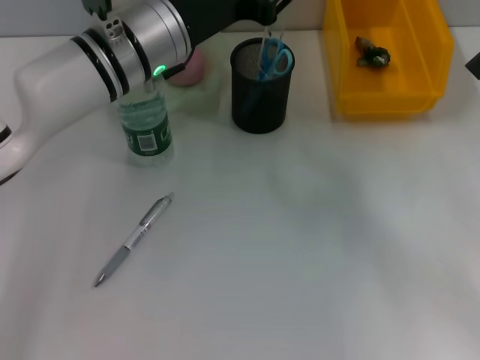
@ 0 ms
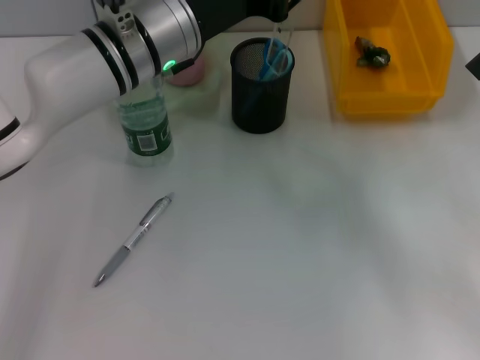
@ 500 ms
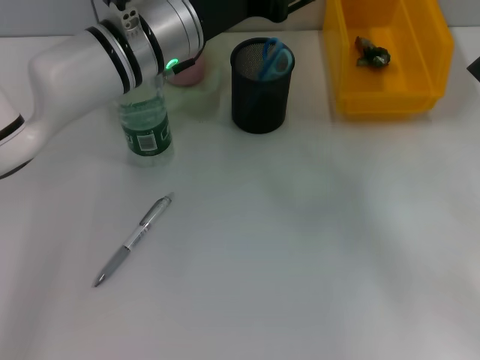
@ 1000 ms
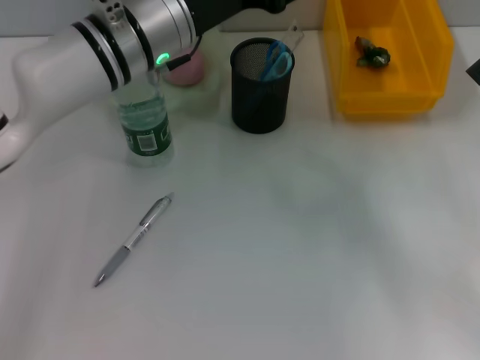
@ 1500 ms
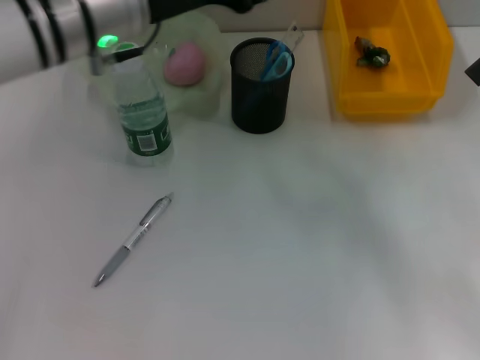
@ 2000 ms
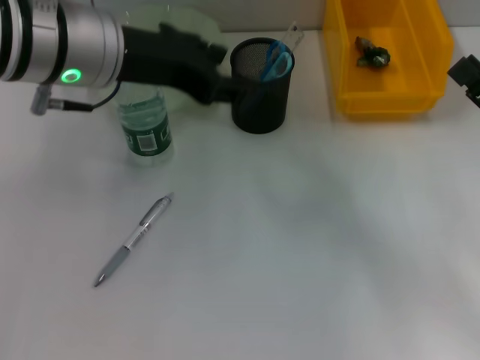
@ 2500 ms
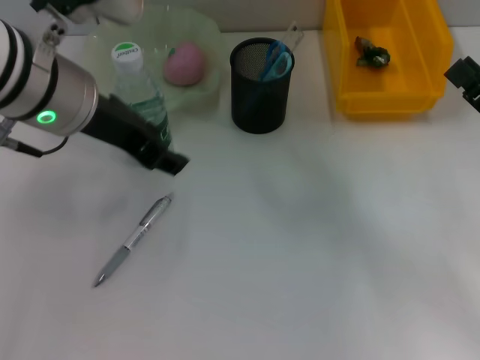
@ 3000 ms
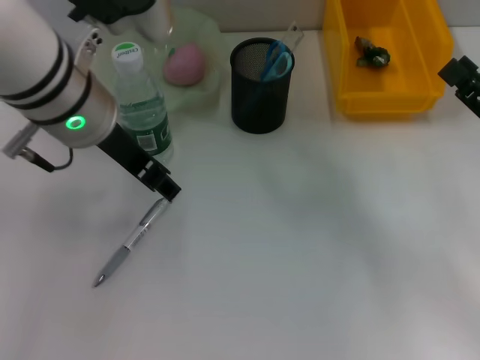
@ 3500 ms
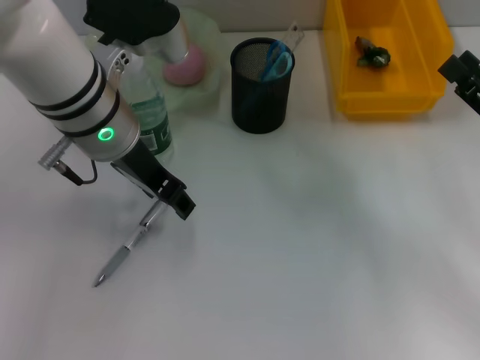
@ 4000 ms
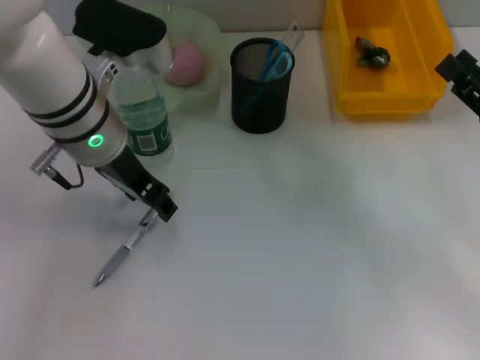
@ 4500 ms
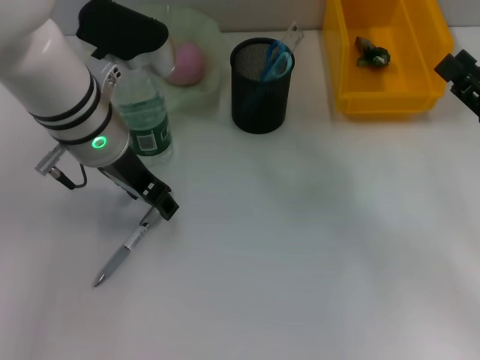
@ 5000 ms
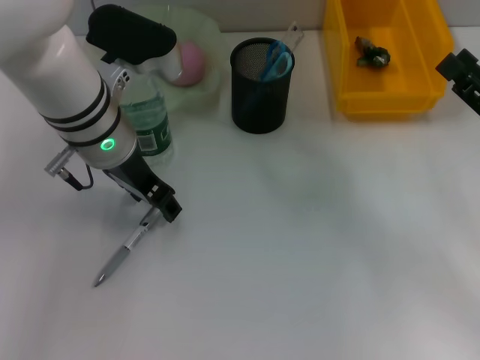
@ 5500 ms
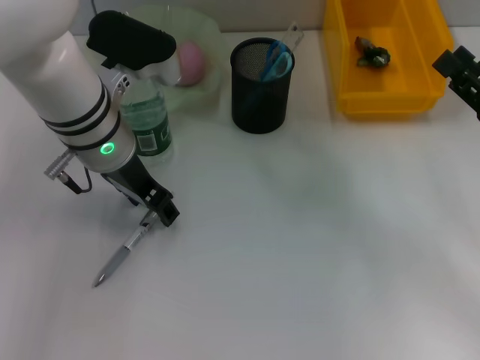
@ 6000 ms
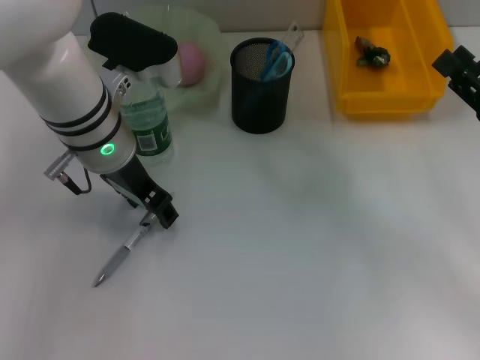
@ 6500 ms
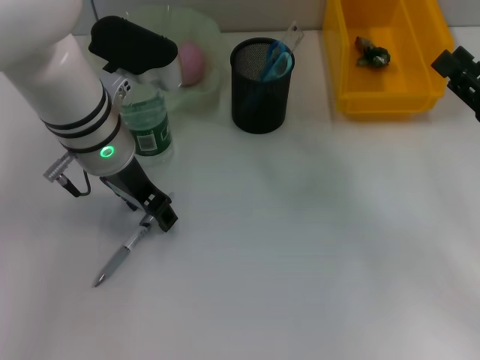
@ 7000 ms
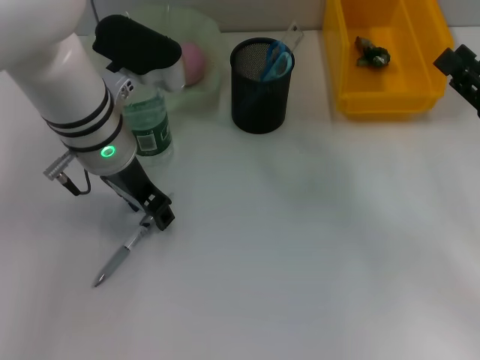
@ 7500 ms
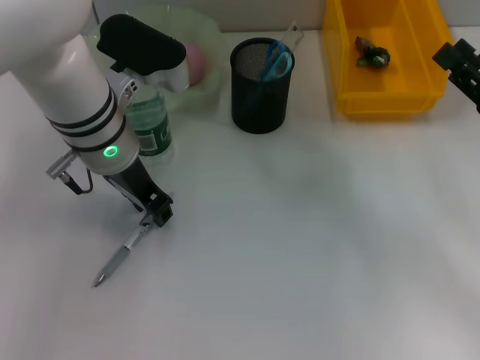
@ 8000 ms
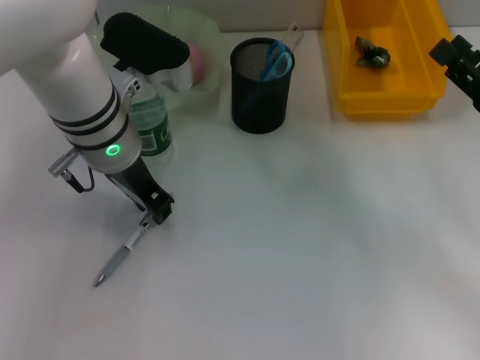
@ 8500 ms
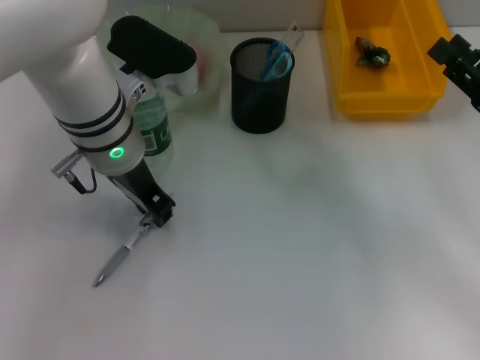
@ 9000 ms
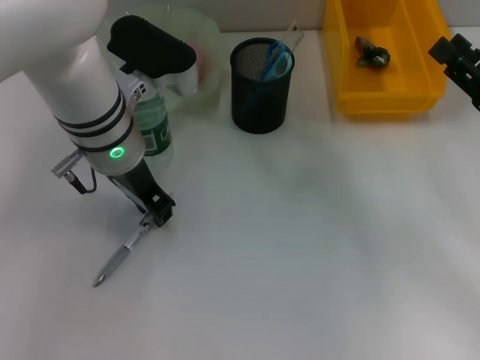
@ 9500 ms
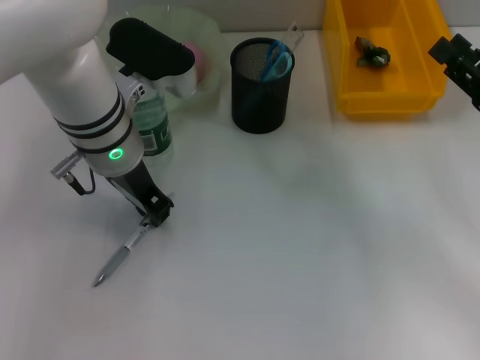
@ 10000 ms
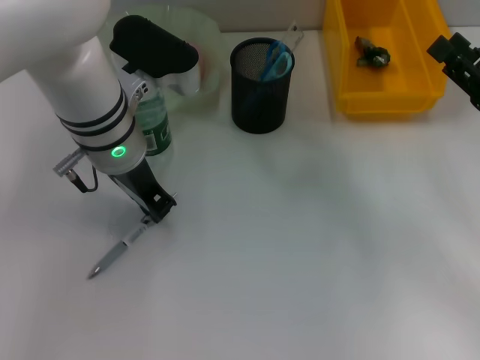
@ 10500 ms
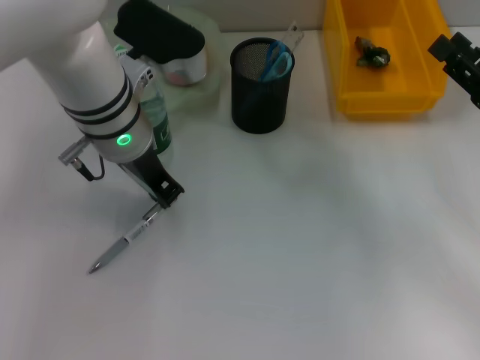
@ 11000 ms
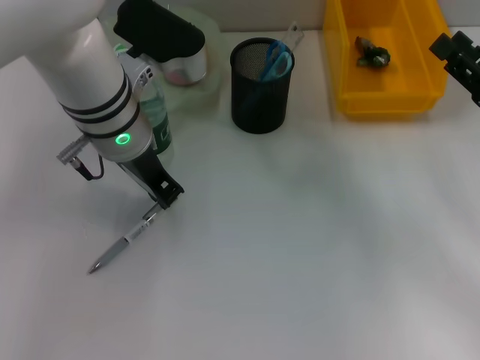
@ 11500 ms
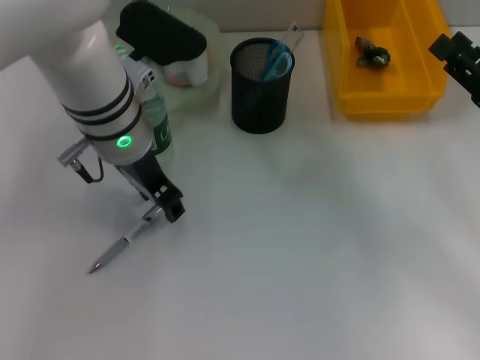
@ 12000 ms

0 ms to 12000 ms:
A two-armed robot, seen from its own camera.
0 ms to 2000 ms: The left gripper shifts some 5 cm upward, and opens up.
4000 ms to 6000 ms: There are only small adjustments of the grippers.
6000 ms to 8000 ms: Both grippers stay about where they are.
8000 ms to 10000 ms: Neither gripper changes place.
10000 ms to 12000 ms: The grippers stay close to where they were, moving slightly.

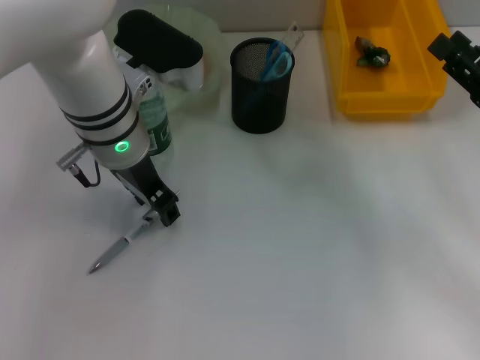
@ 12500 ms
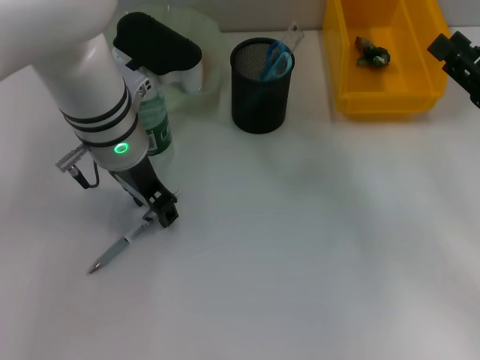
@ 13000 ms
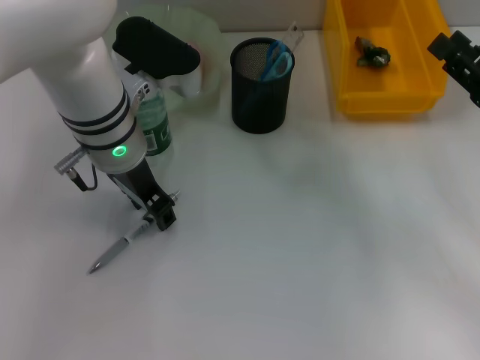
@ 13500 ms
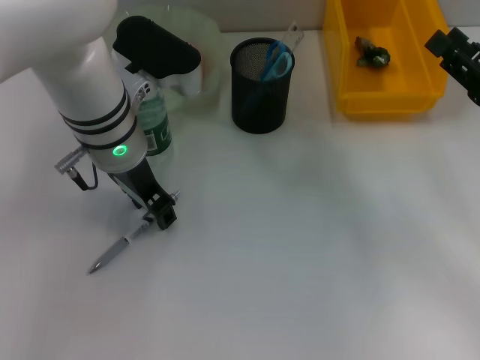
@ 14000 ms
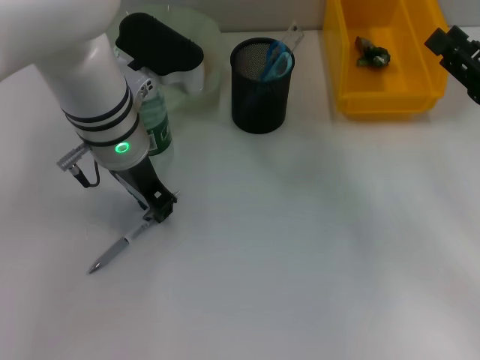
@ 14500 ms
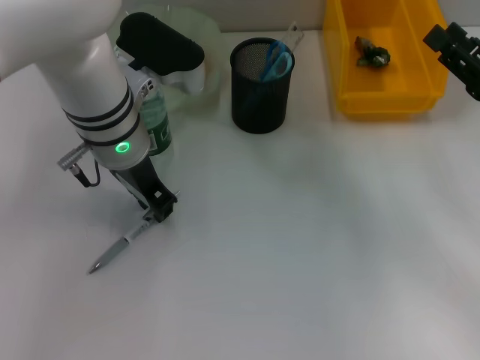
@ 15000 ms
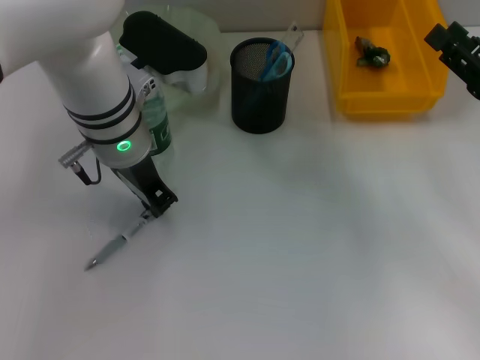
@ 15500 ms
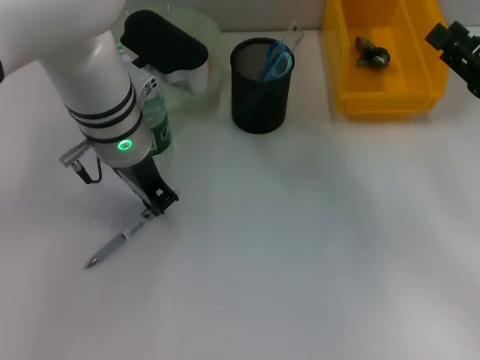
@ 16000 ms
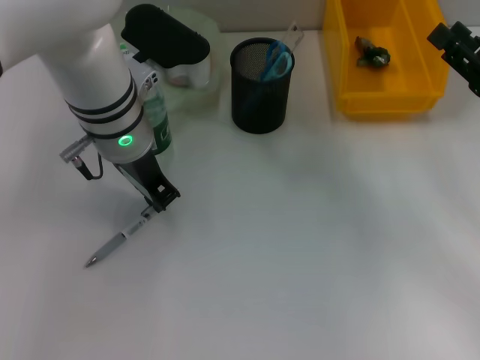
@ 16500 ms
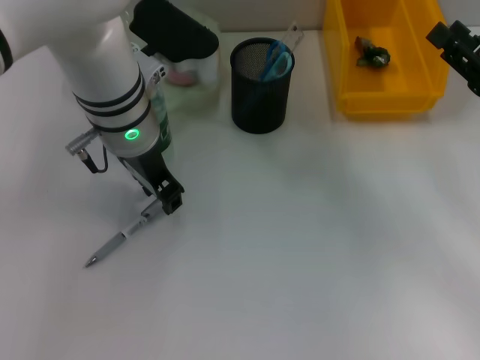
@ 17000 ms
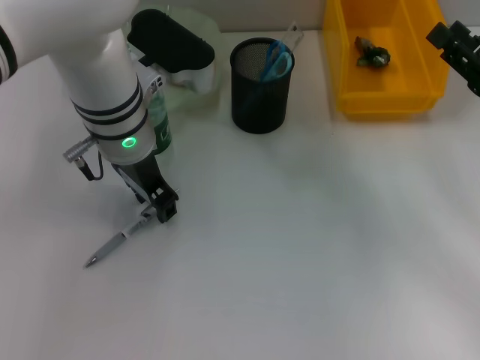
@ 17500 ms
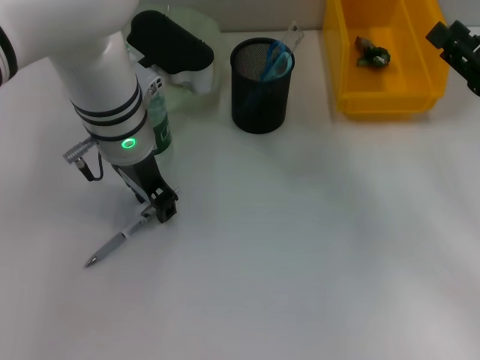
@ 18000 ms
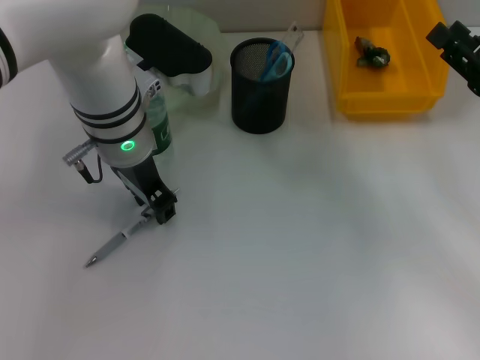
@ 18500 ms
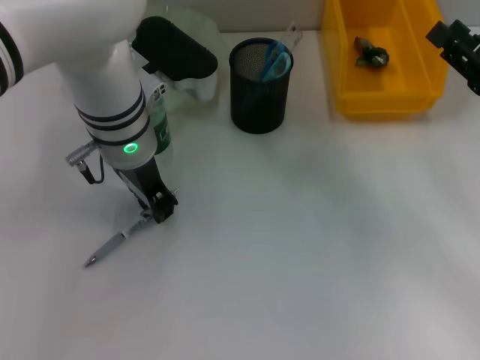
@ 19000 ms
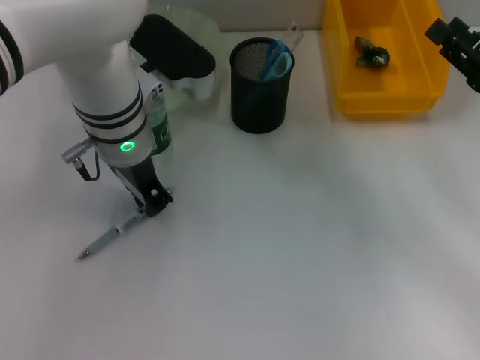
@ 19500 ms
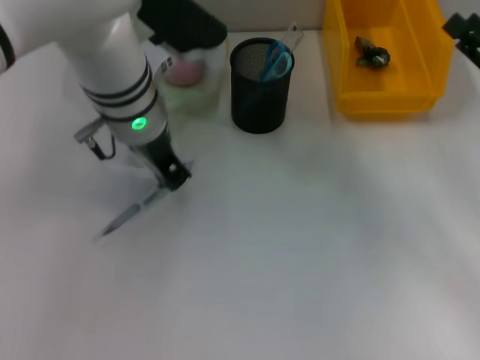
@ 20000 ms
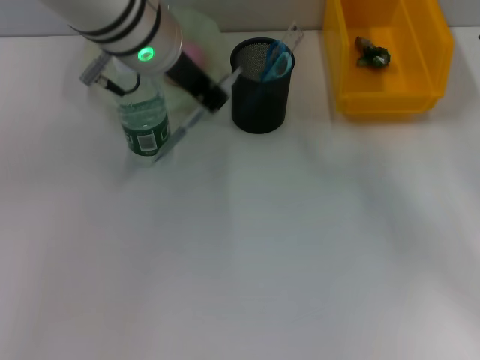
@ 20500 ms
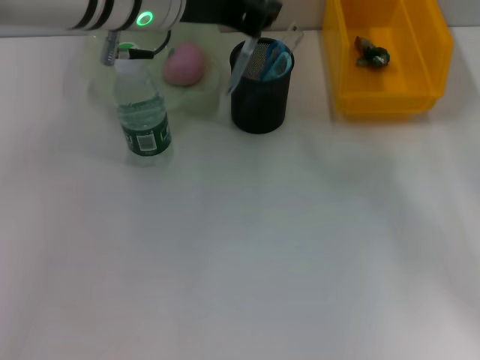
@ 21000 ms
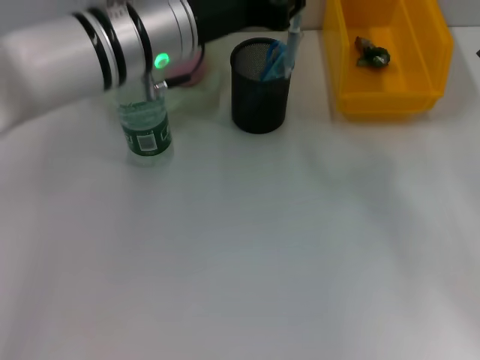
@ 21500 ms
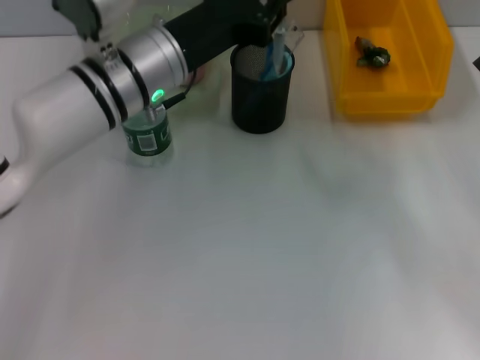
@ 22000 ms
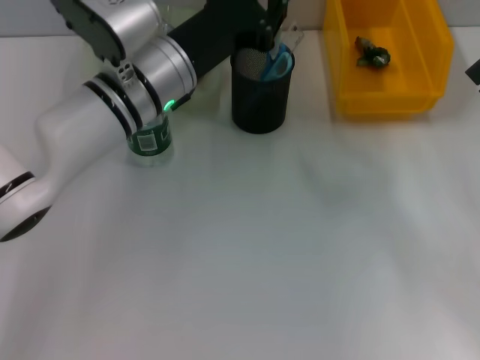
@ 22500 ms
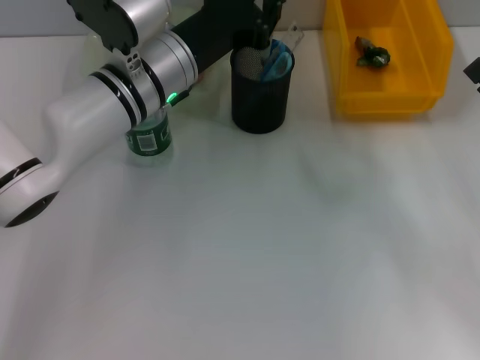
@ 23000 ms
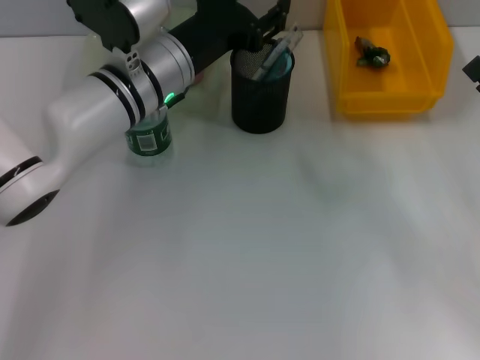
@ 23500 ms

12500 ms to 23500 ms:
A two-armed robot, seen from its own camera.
Step, 12500 ms to 19500 ms: Grab the gray spring-action pen with the left hand.
12500 ms to 14500 ms: Both grippers stay about where they are.
14500 ms to 16000 ms: The left gripper closes.
16000 ms to 18000 ms: The left gripper opens.
18000 ms to 20000 ms: The left gripper closes up.
20000 ms to 21500 ms: The left gripper reaches roughly 10 cm upward, then returns.
21500 ms to 23500 ms: The left gripper shifts roughly 5 cm downward, and opens its fingers.

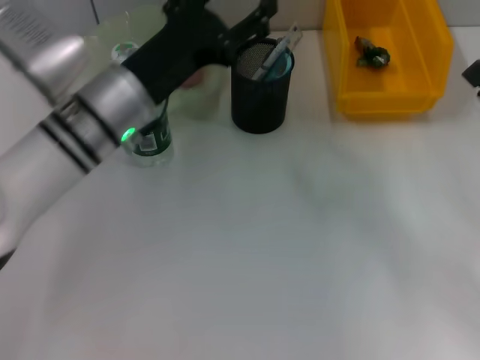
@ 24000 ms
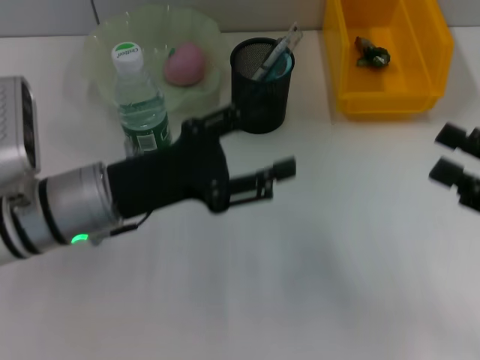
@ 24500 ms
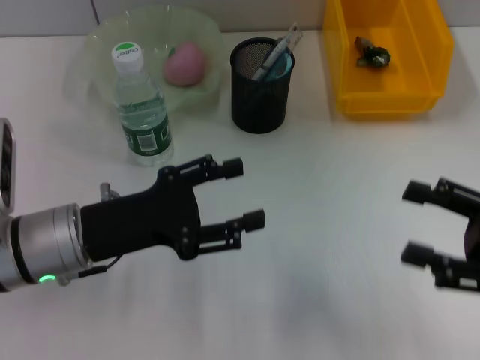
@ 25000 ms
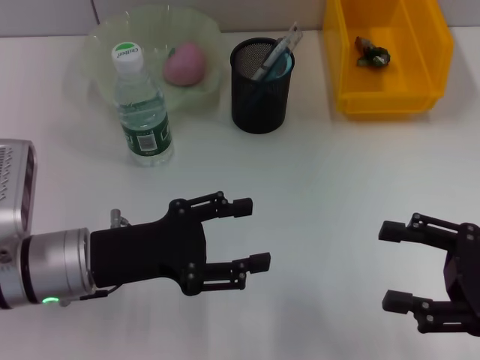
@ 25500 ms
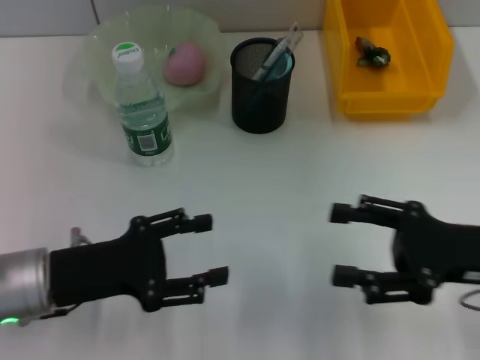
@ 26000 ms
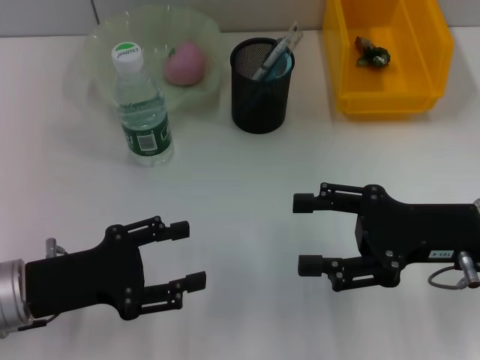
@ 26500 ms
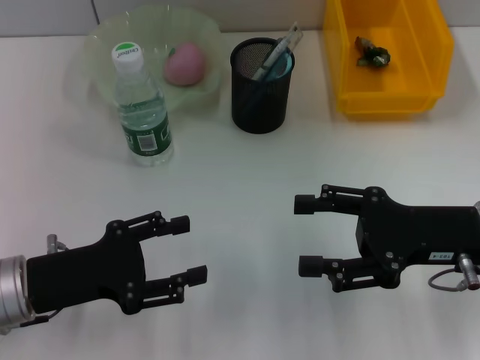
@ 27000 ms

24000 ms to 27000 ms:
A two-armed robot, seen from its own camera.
24000 ms to 25500 ms: The right gripper moves backward, approximately 5 cm; the left gripper is displaced backward and to the left by some 10 cm.
25500 ms to 27000 ms: The left gripper is displaced to the left by approximately 5 cm; the right gripper shifts approximately 10 cm to the left and forward.
